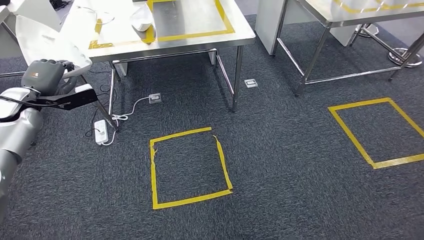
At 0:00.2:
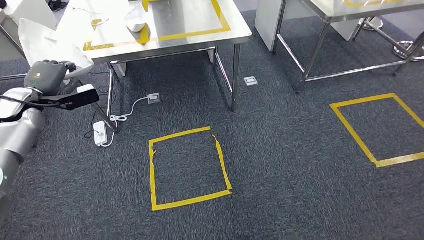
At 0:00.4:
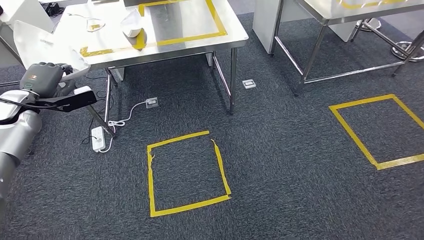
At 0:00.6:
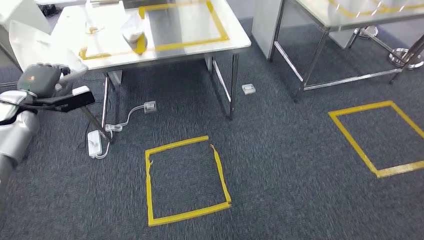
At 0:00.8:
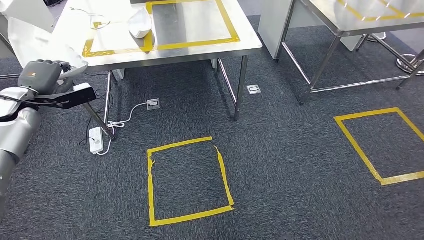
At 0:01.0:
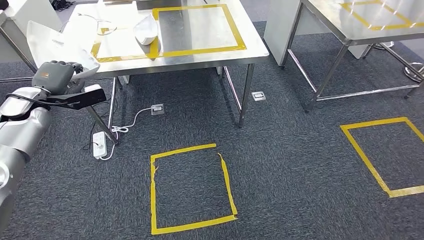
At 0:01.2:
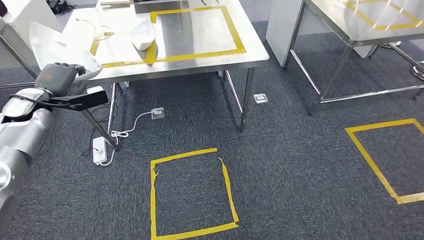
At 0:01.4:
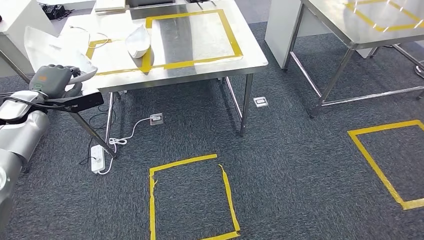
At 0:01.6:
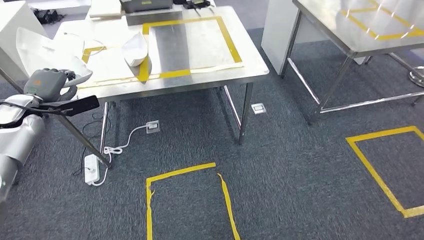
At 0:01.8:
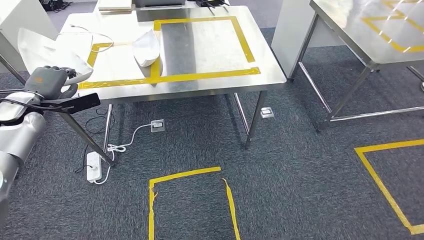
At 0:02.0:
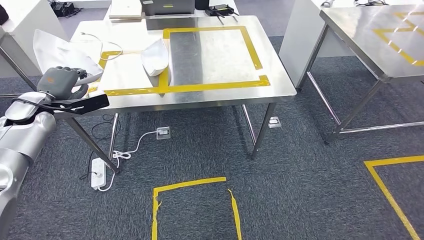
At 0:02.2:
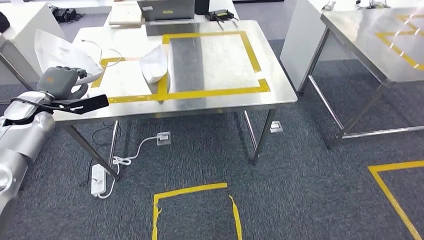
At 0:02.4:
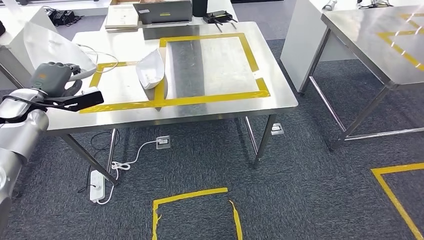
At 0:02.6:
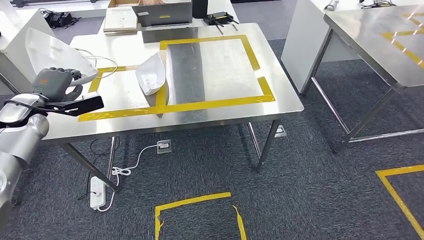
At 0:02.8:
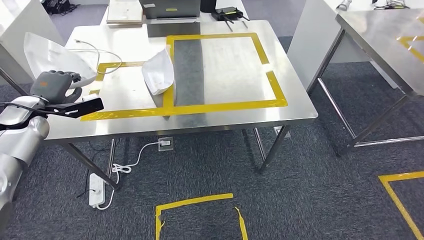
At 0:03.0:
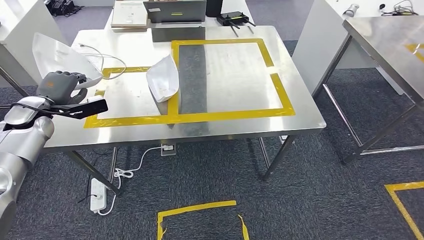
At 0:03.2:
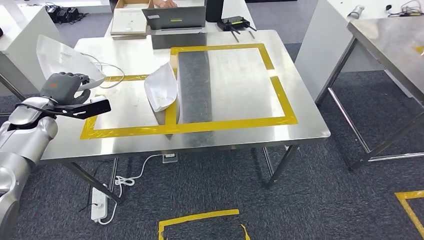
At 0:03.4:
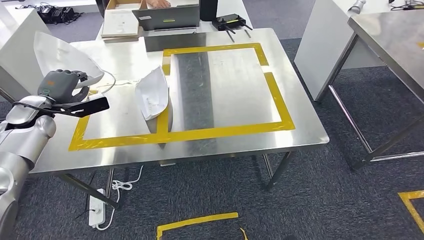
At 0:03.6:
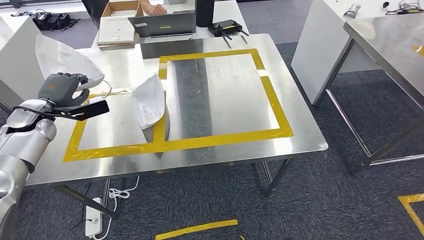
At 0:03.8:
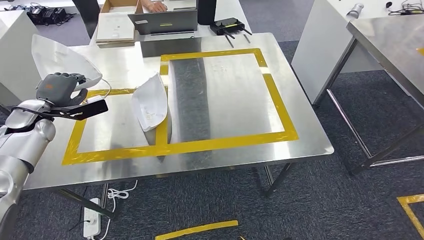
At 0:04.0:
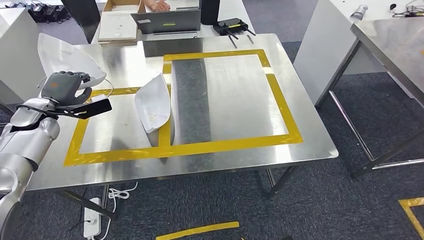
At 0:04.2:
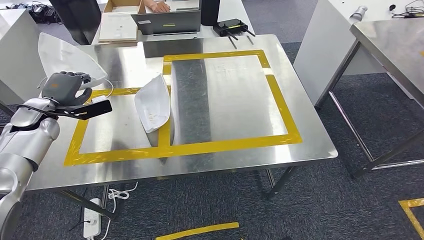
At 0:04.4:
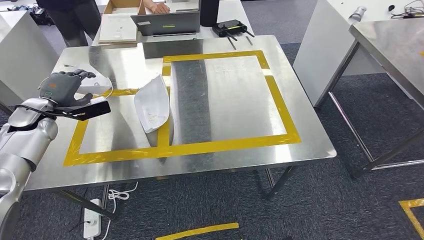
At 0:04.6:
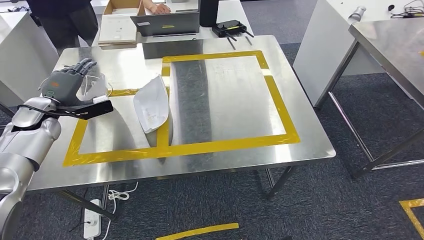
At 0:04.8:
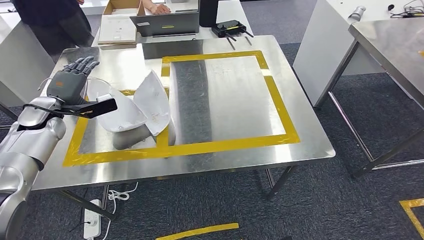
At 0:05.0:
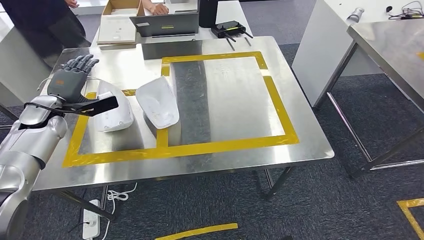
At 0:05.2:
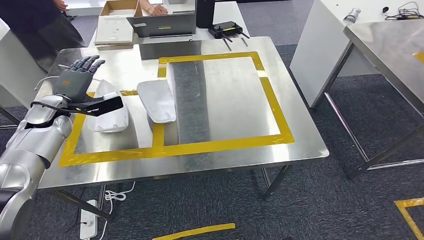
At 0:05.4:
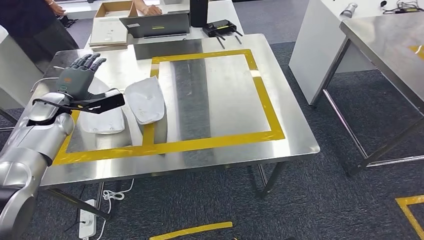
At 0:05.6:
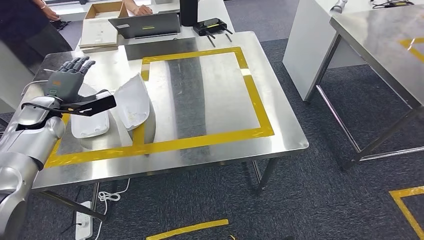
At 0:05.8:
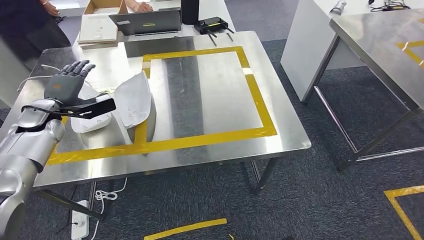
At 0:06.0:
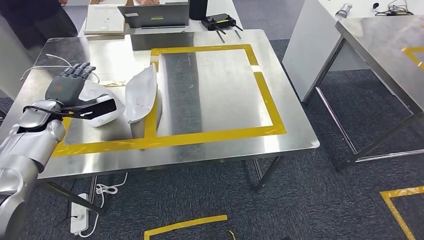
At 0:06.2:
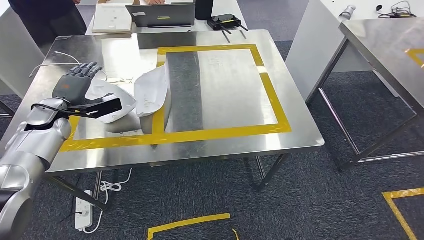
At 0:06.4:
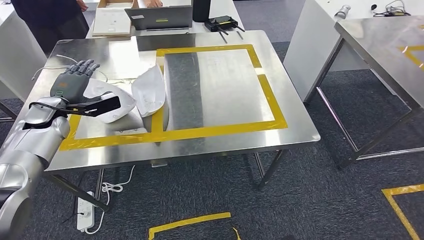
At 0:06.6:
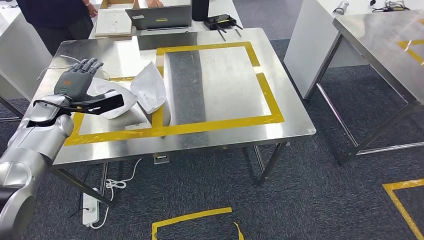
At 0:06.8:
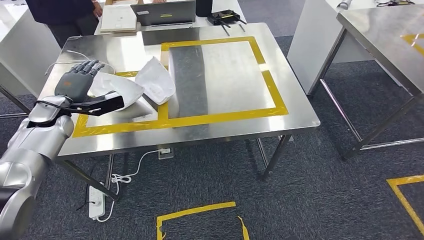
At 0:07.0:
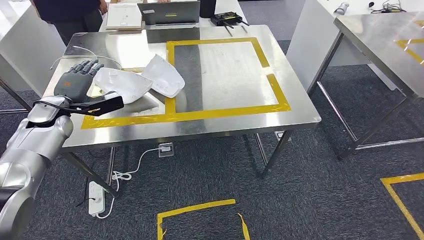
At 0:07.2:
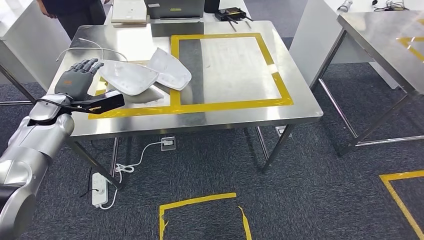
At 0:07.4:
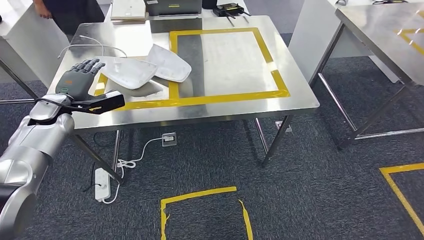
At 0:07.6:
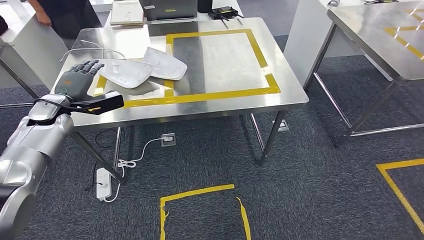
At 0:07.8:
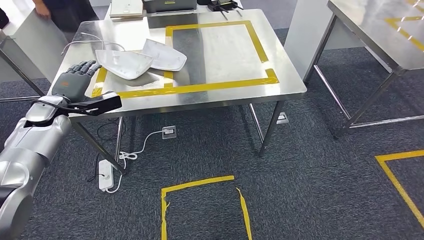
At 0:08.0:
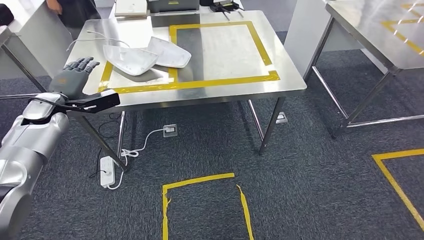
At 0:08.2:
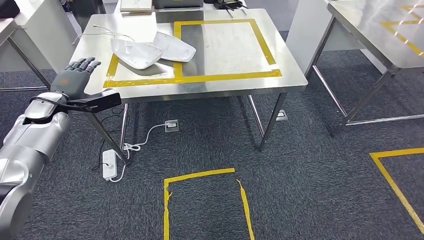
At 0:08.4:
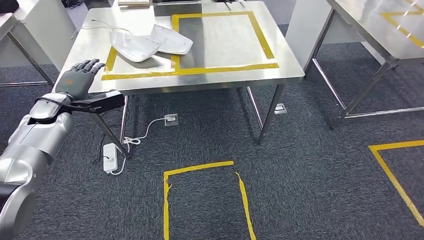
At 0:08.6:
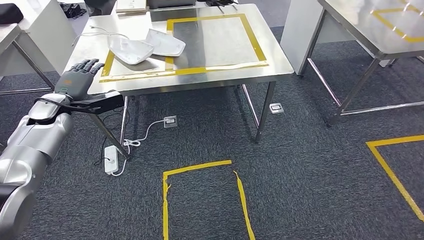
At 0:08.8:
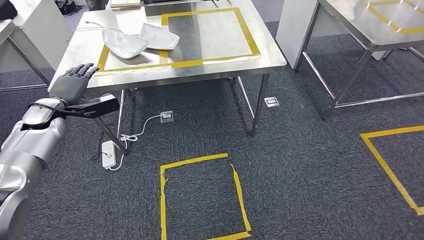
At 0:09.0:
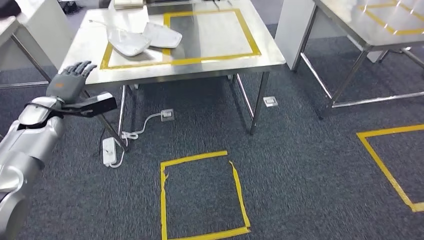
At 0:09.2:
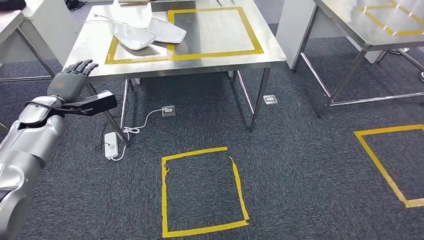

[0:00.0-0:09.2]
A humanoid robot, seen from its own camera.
Step, 0:00.8 to 0:06.8: Insert the small parts into the corresponding holes on the workbench.
Step, 0:07.2 to 0:09.2: Move to the initial position of the workbench.
